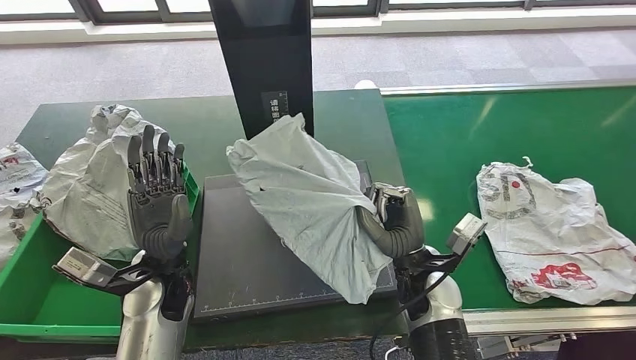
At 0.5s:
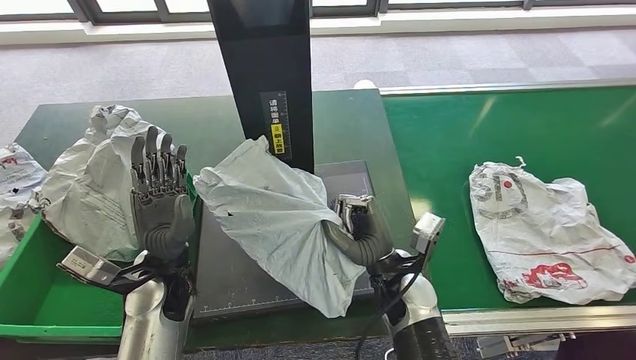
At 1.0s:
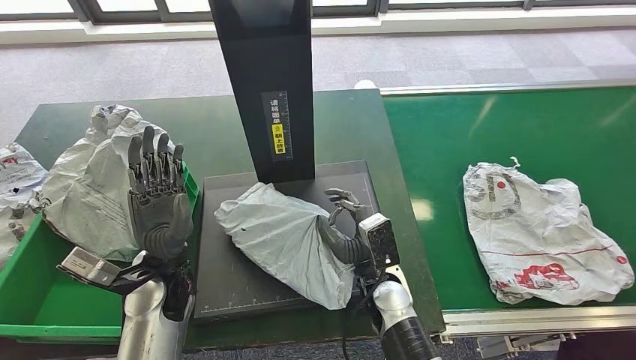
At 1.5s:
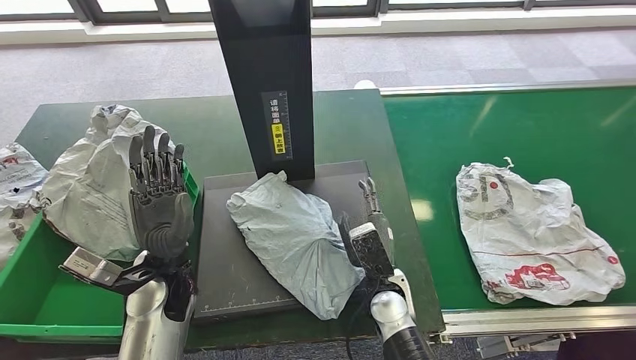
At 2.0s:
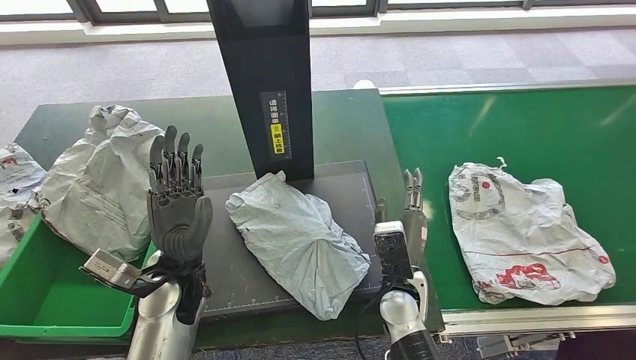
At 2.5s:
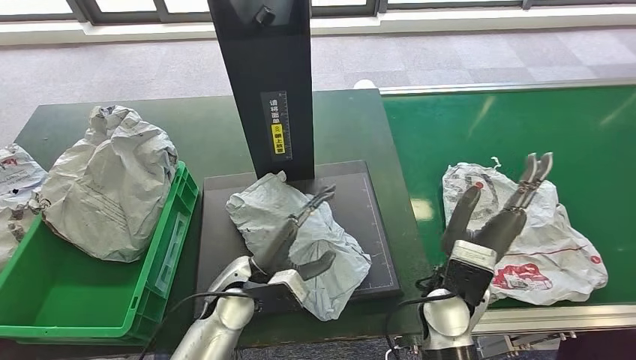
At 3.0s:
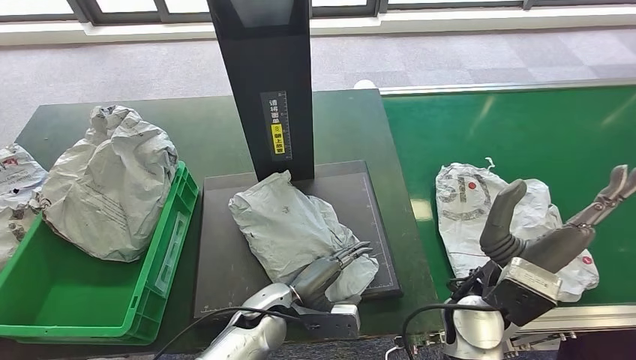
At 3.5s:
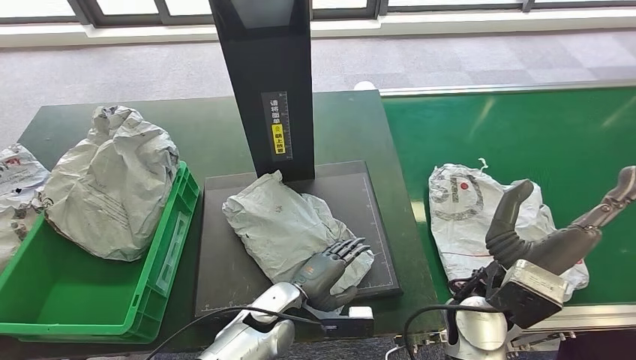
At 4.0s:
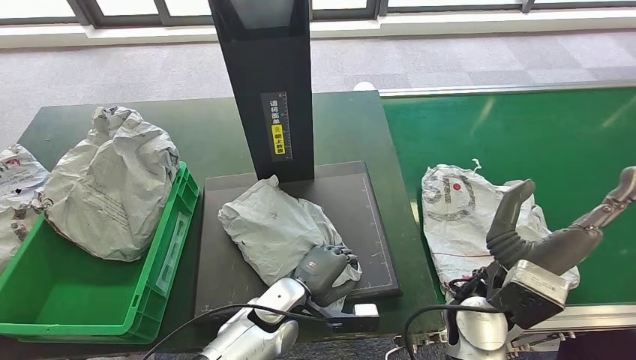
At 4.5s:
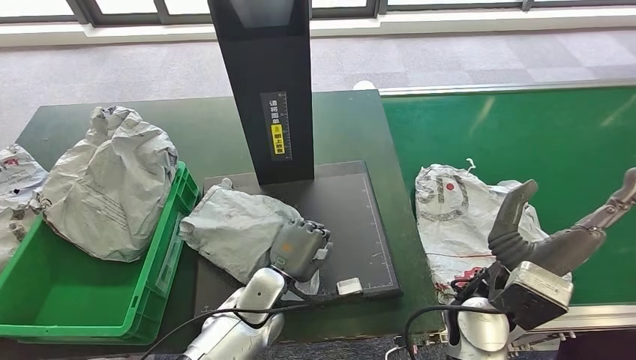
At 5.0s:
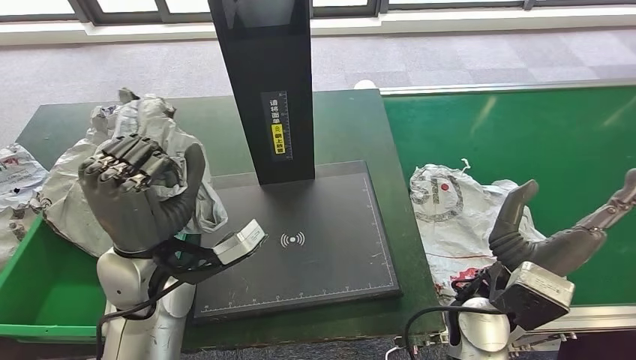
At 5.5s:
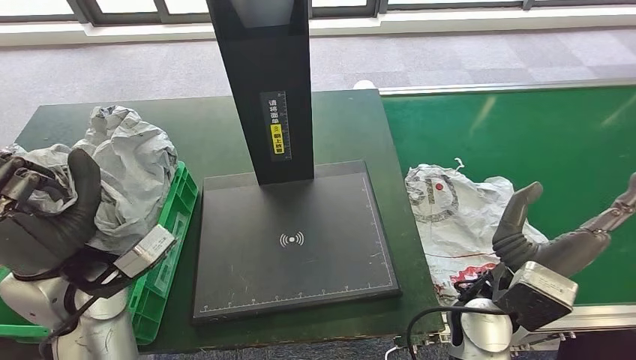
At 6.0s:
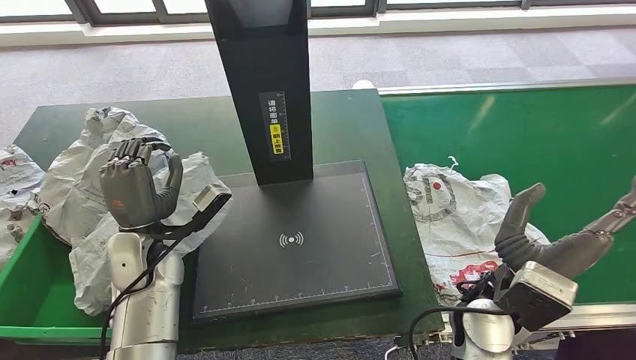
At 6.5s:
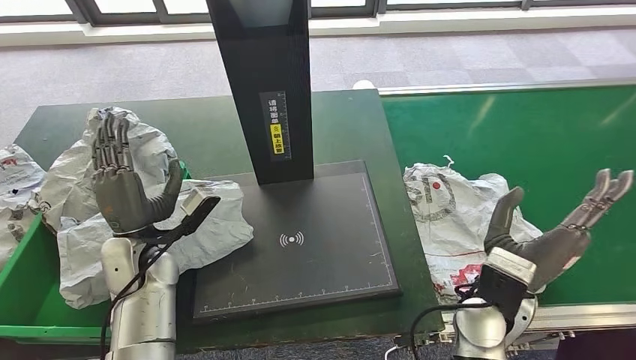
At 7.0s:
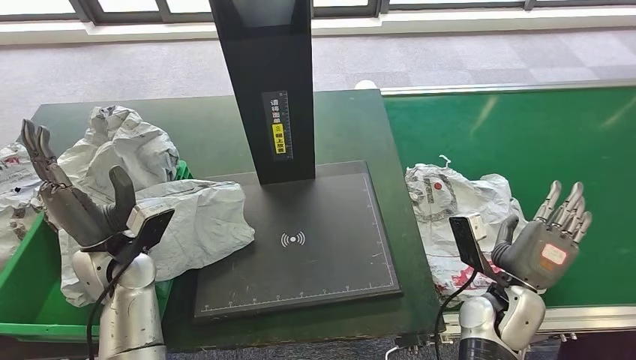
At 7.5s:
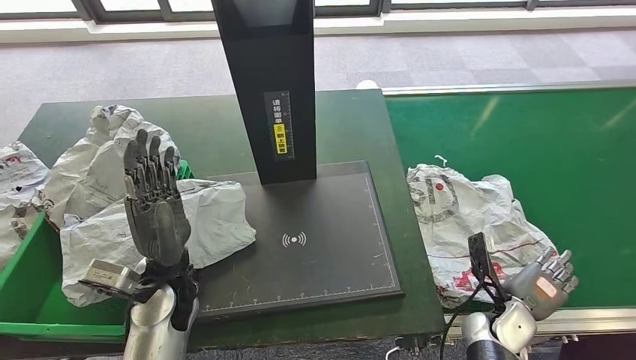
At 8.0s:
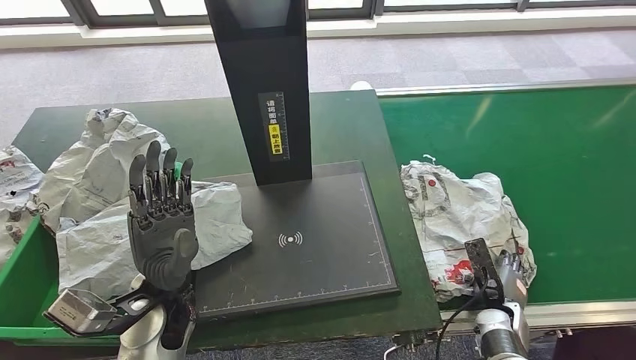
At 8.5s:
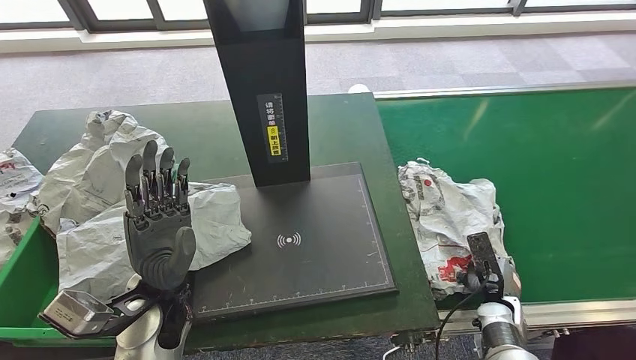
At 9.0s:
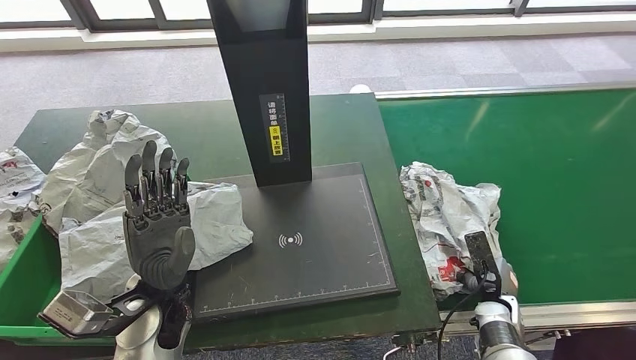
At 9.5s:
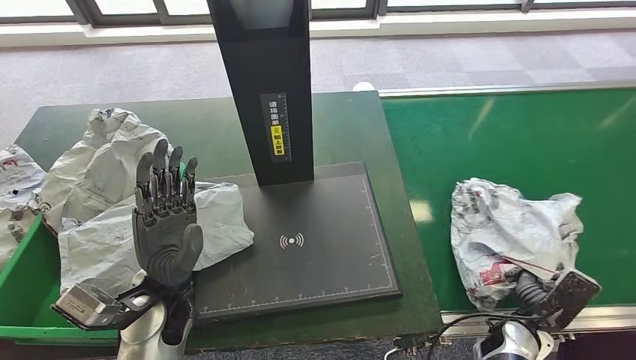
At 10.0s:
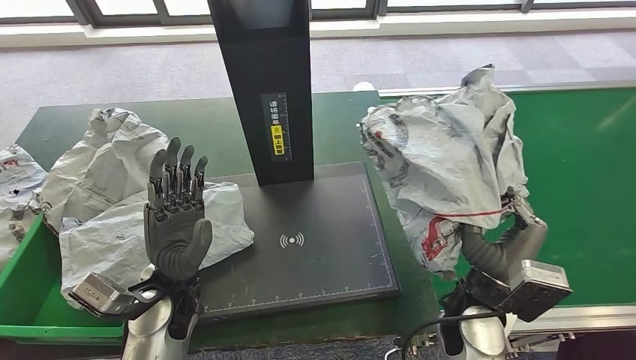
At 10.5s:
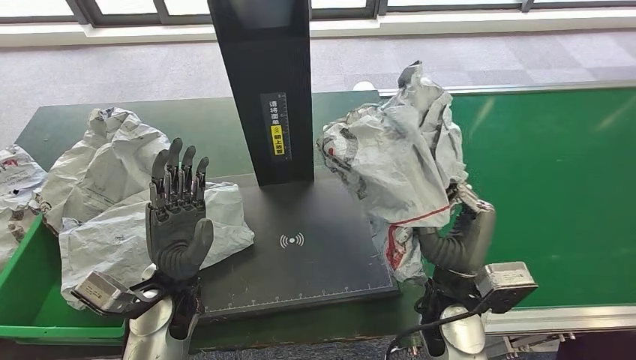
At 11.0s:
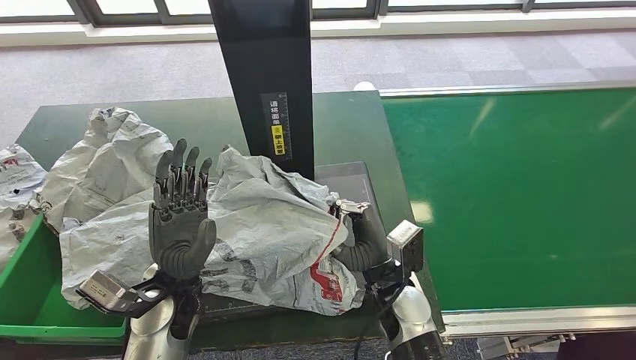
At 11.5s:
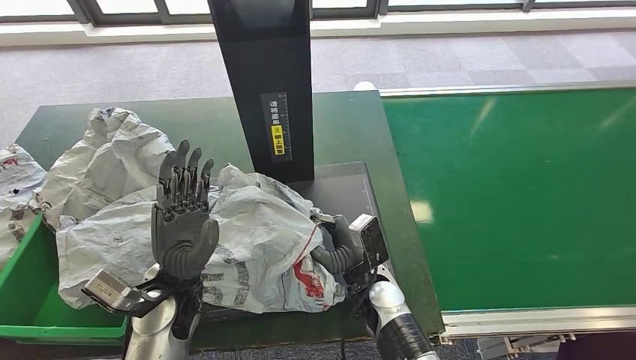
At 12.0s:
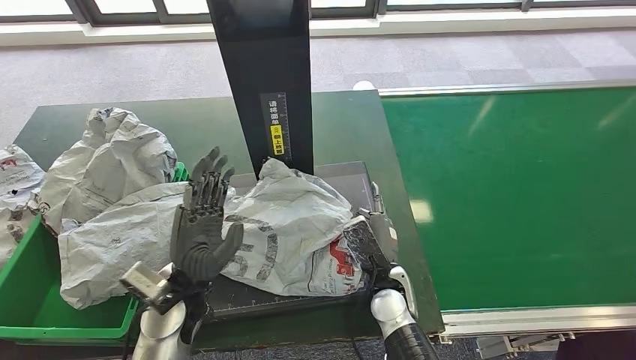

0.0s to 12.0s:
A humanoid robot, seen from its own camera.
Step, 0.5s to 3.0s: Place the parcel onto the inbound machine.
Step, 3.5s to 5.5s: Pick up the parcel from the inbound machine.
Step, 6.0s to 7.5s: Place the parcel into the delivery box.
Step, 8.0s to 10.5s: Pick up the parcel from the conveyor belt.

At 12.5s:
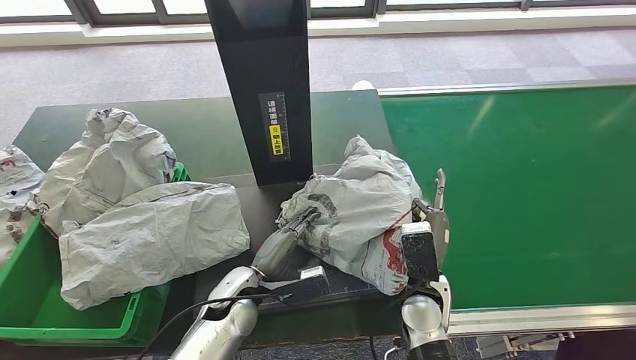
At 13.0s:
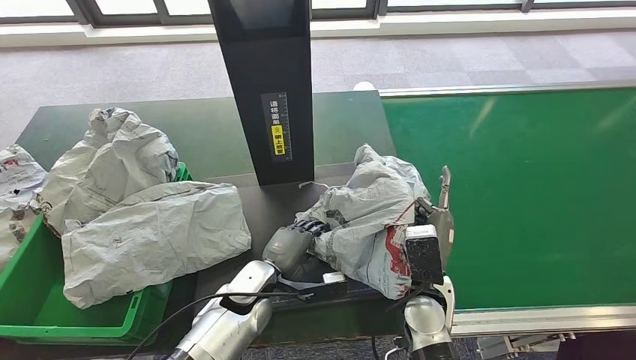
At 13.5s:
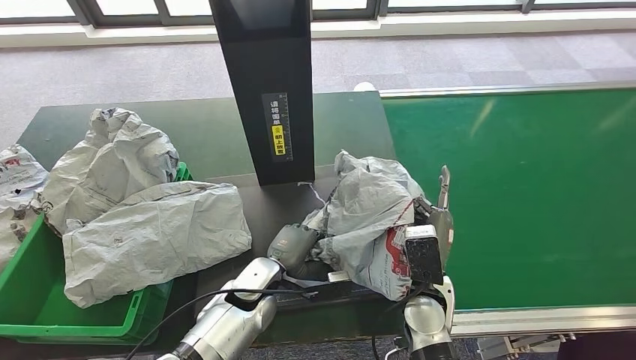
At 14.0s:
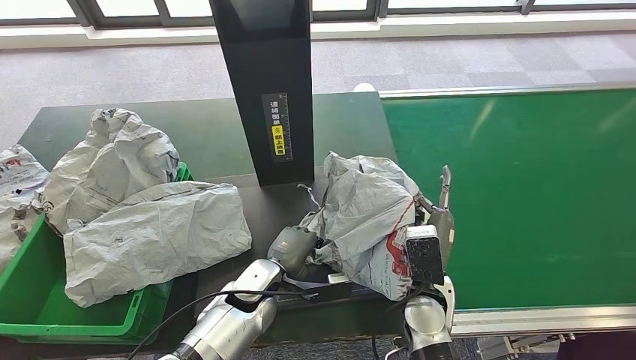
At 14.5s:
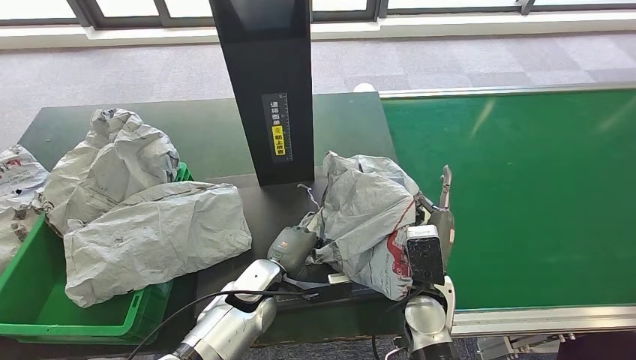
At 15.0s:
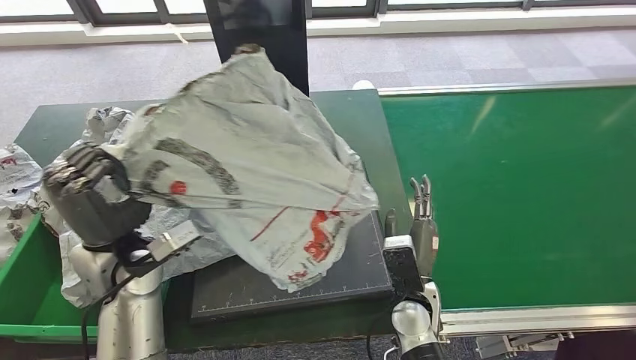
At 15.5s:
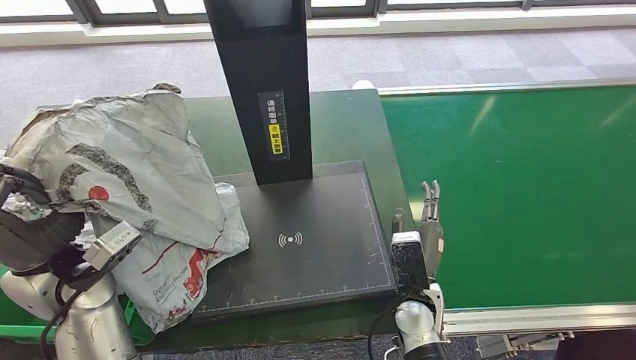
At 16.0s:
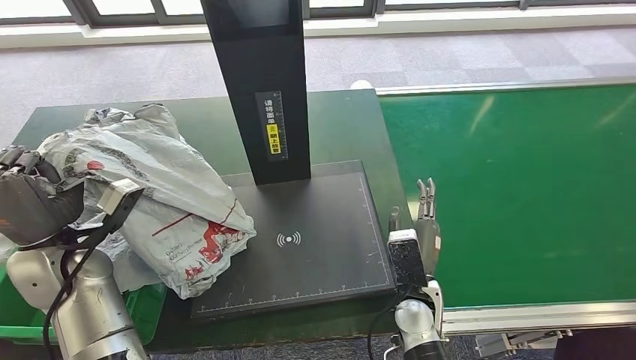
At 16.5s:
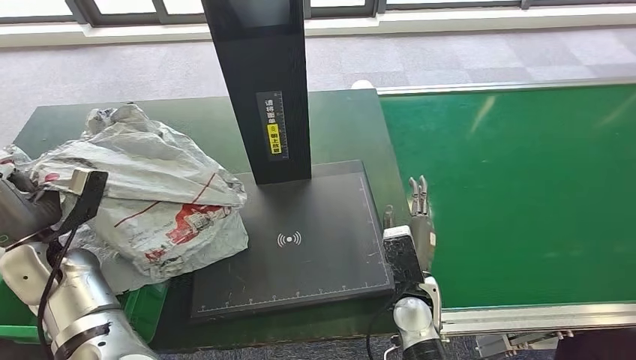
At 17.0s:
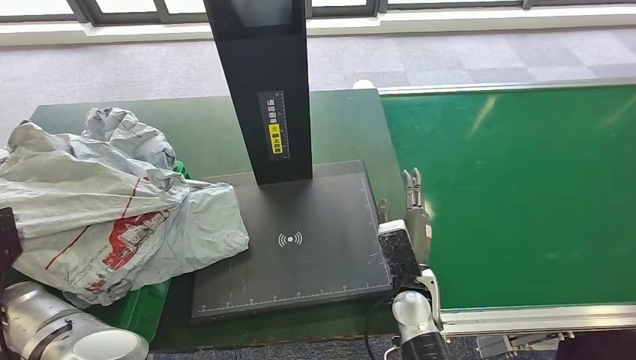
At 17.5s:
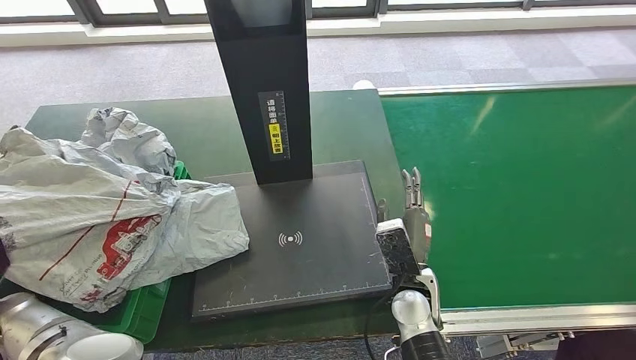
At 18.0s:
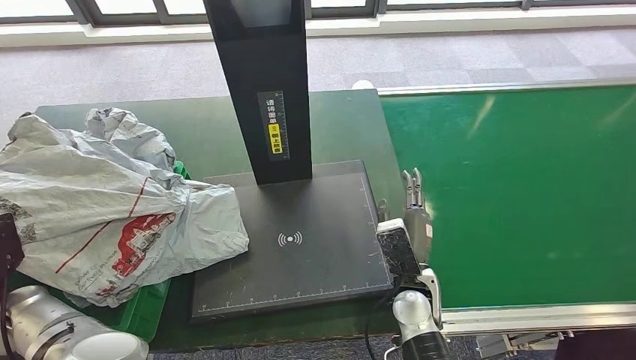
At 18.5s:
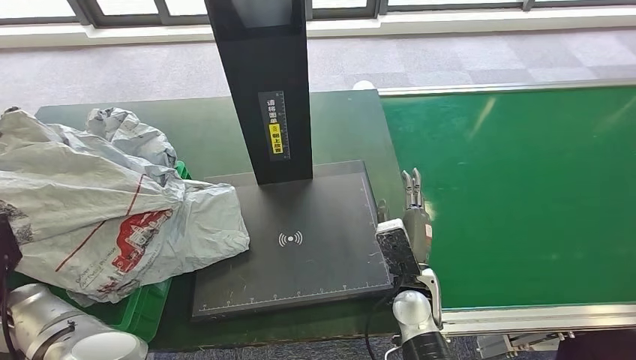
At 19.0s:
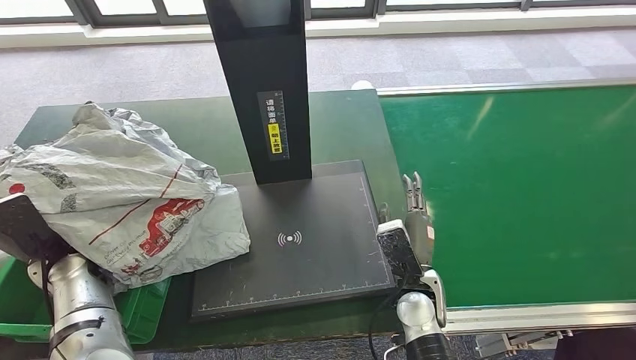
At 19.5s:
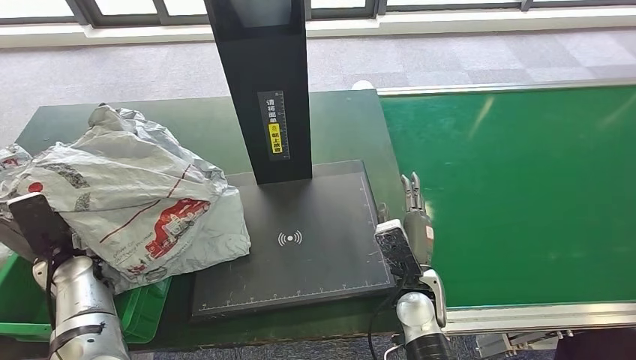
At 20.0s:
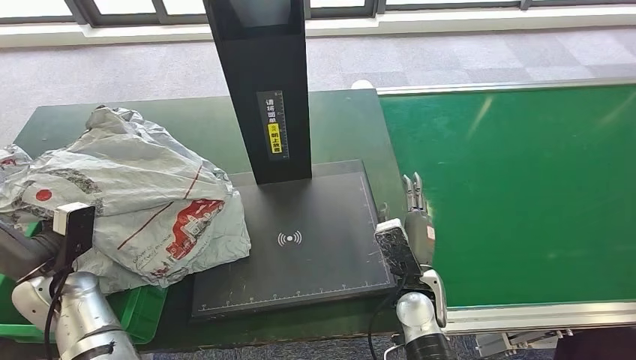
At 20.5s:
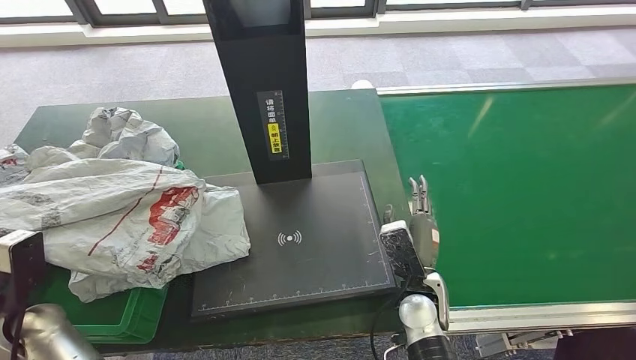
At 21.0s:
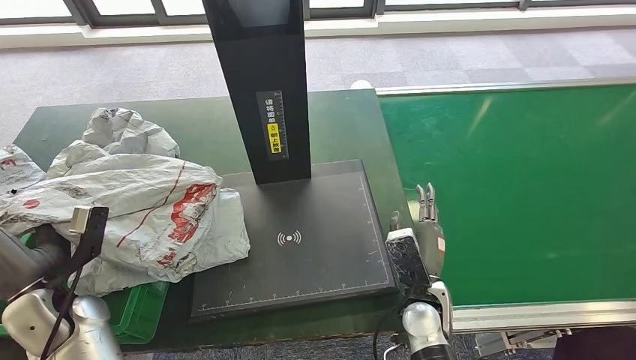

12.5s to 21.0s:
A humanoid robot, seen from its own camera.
Step, 14.0s to 16.0s: Pick up the parcel from the inbound machine.
16.5s to 19.0s: The left hand goes roughly 5 cm downward, and travels backward and back again, some 5 cm each way.
19.0s to 21.0s: The left hand is displaced backward and to the right by about 10 cm.
